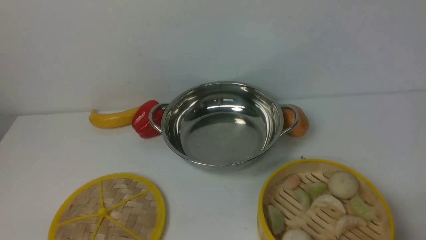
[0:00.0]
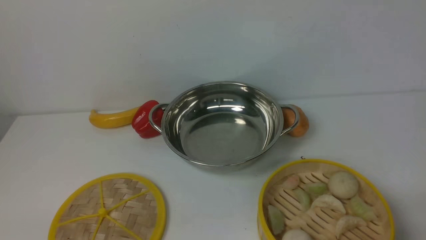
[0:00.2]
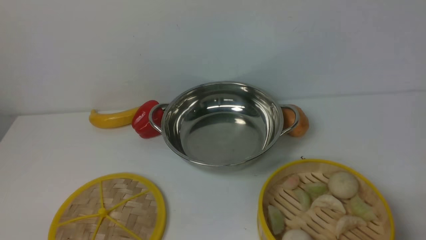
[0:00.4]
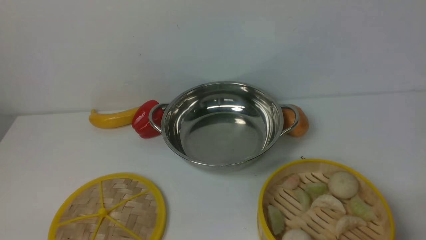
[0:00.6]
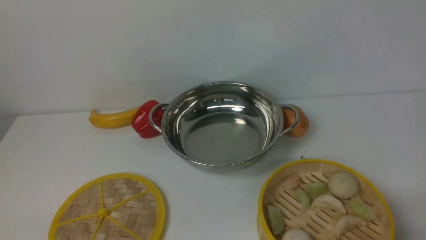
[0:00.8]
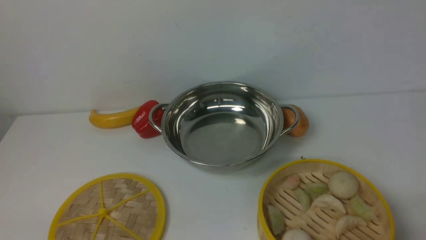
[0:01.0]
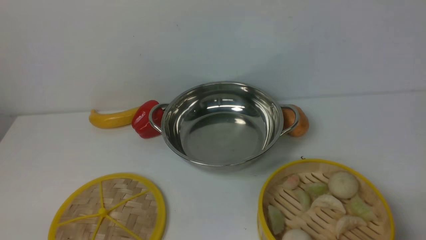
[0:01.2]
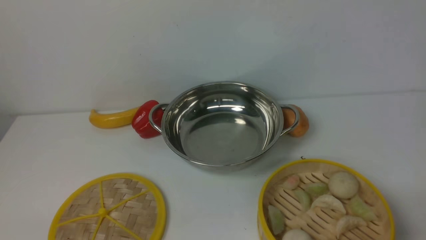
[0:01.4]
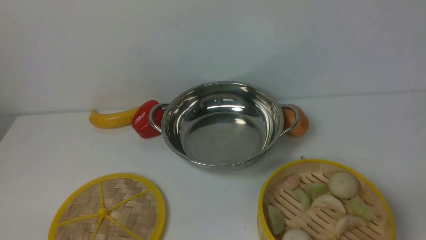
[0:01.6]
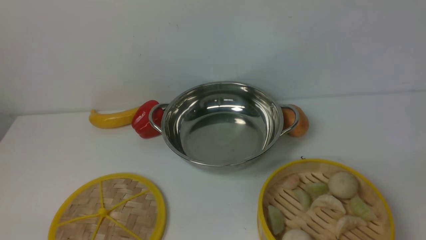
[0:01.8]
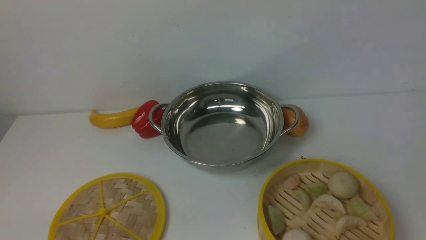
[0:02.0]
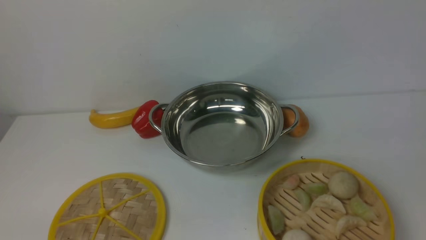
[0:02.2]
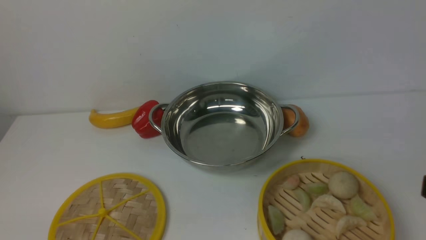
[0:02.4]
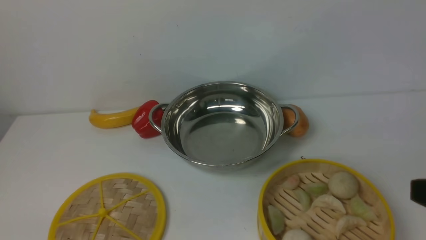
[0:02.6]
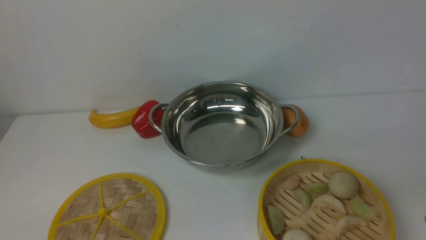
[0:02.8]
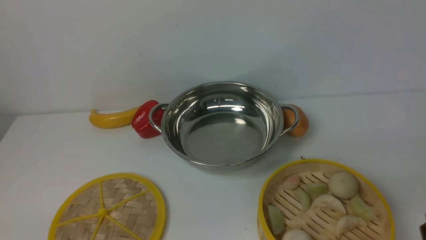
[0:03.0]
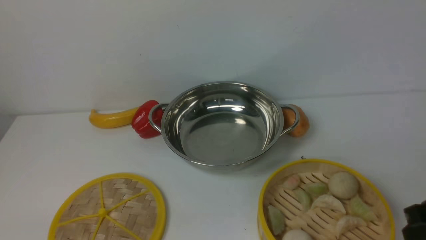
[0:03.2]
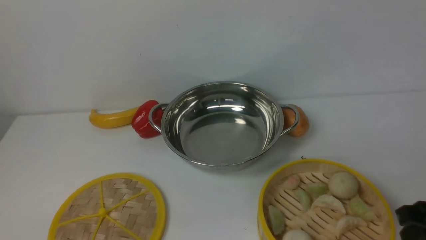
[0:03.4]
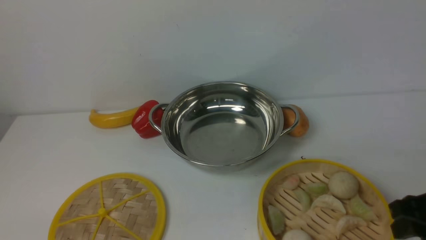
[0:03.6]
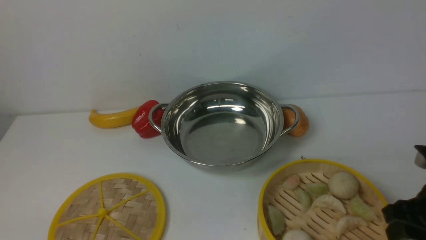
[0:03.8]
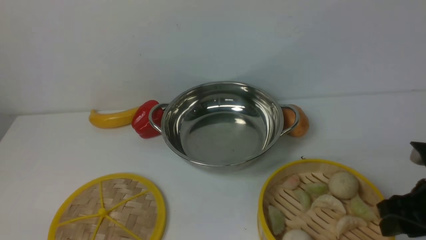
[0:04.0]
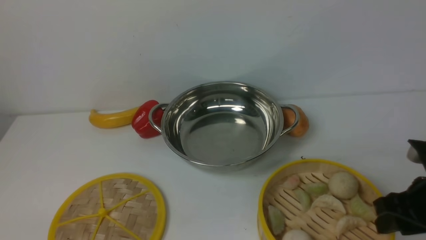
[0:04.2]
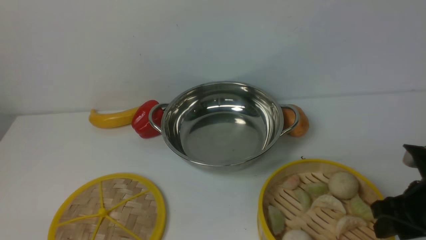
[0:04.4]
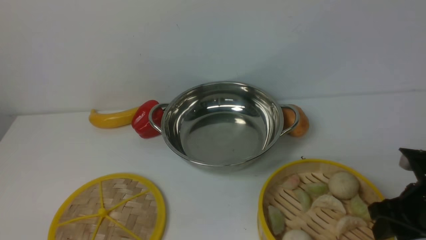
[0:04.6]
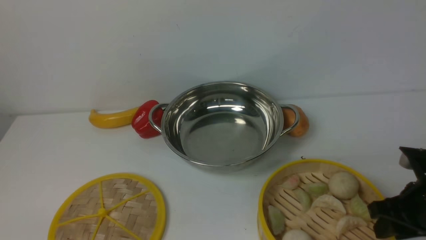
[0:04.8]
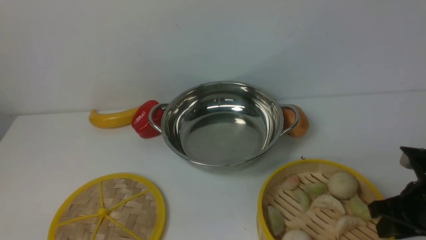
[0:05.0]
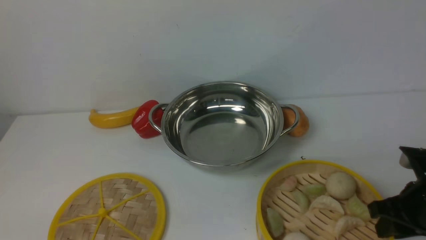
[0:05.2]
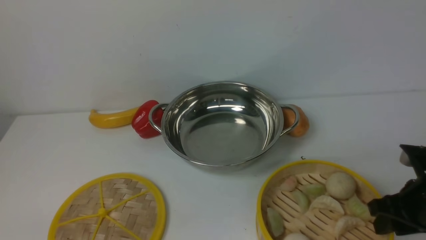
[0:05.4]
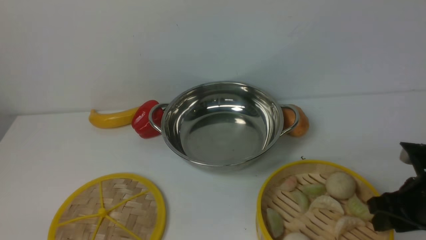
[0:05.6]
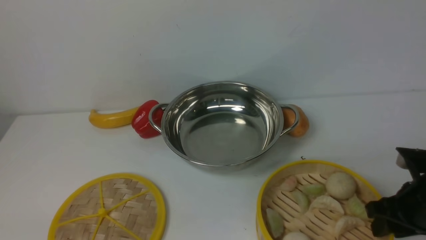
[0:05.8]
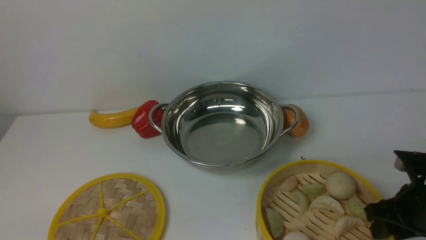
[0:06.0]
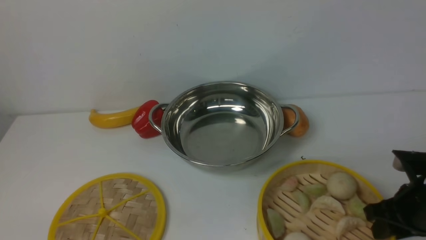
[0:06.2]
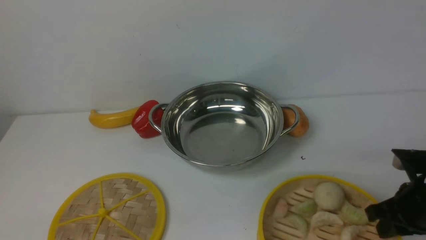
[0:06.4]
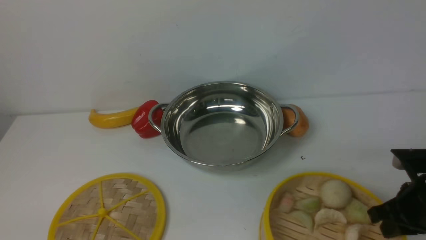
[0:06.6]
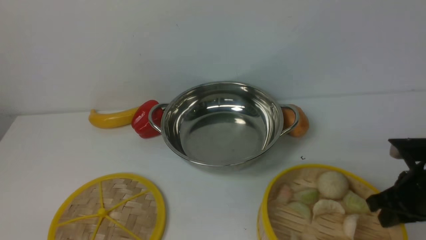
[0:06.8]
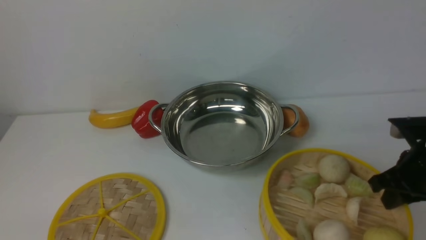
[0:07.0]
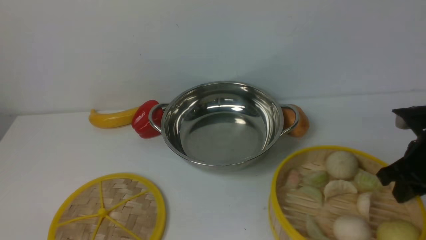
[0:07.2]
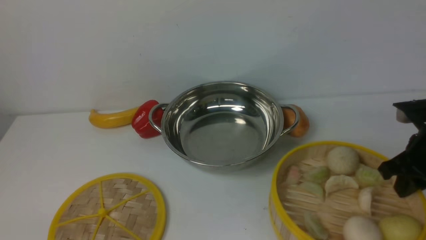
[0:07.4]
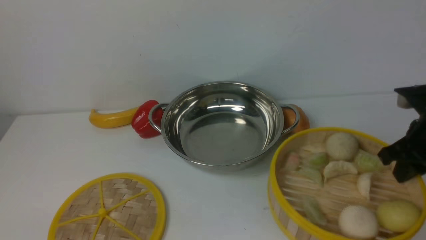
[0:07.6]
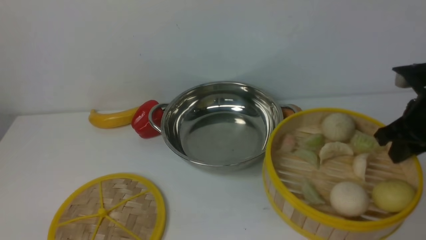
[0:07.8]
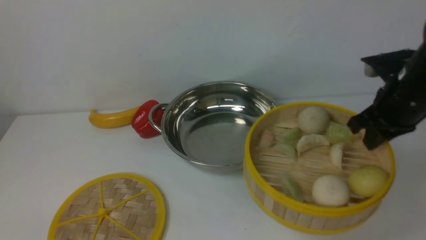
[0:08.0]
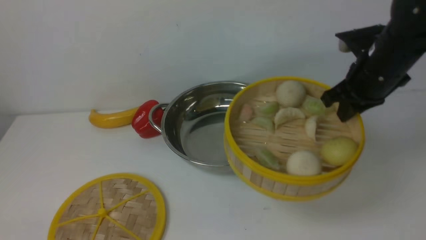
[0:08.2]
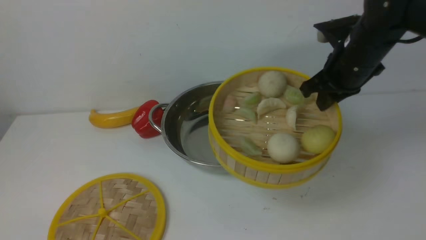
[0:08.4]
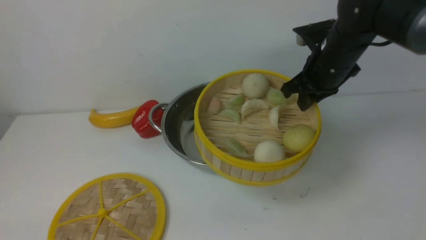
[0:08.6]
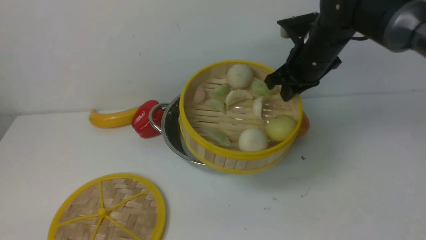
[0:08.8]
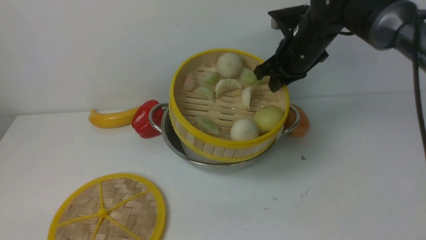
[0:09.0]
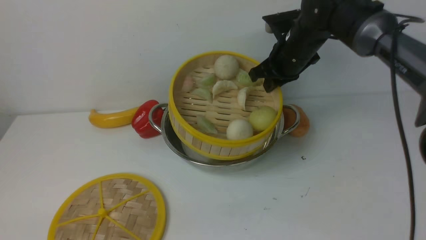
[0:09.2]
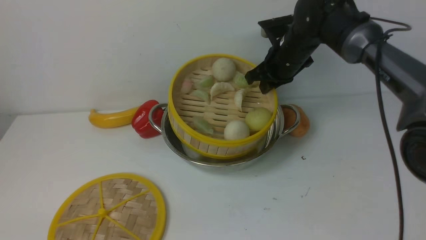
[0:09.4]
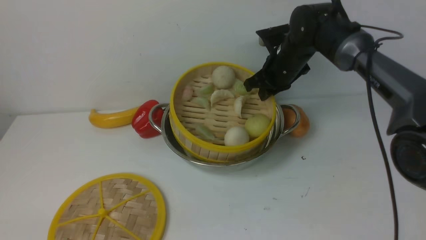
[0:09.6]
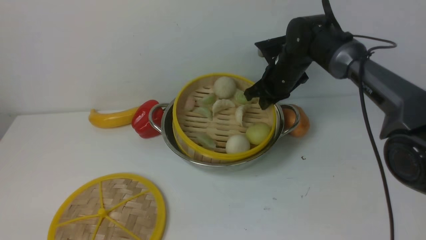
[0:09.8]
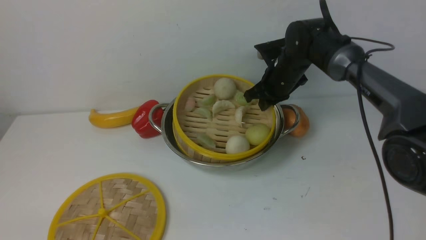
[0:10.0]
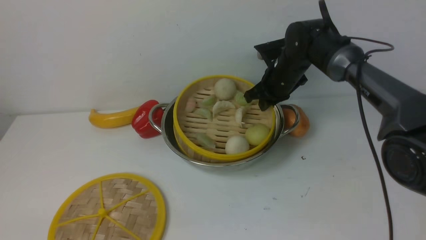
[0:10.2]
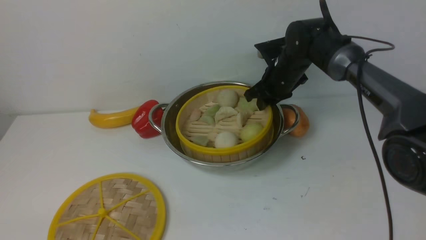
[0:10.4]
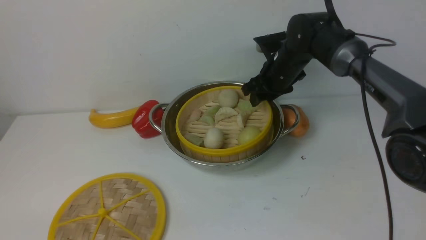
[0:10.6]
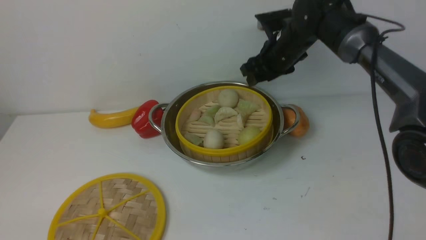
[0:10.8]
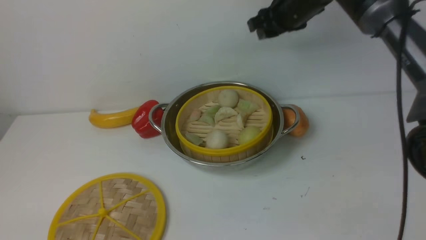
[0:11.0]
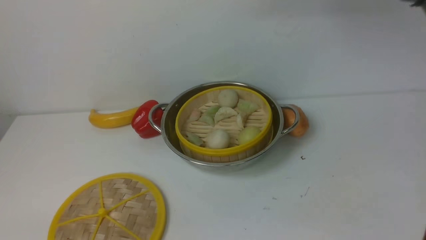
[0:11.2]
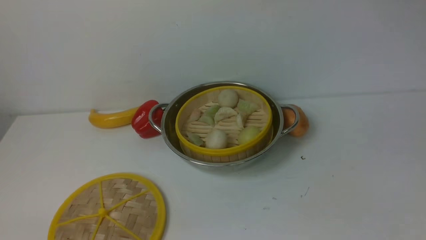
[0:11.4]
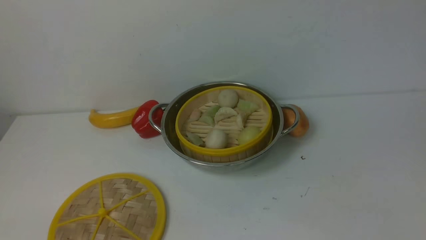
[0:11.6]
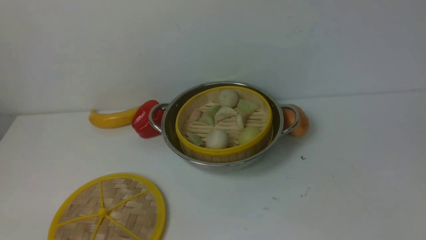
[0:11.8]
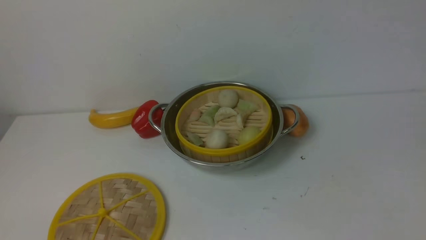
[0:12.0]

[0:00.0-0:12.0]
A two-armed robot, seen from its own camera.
Task of the whole recording: place the steamer in the pot on the white table, and put the lid on the steamer.
Step, 0:00.0 to 0:07.2: use the right arm to lift the steamer closest to it.
Step, 0:07.4 to 0:11.2: use the right arm to put the steamer into the iron steamer pot in the middle.
0:03.0 to 0:04.4: The right gripper is displaced downward and forward by some 10 cm.
0:04.4 to 0:06.0: The grippers move only a little.
0:06.0 to 0:07.6: The right gripper heads upward and forward, covering approximately 10 cm, and closes.
0:07.6 to 0:09.0: The right gripper is displaced forward and to the left by approximately 20 cm.
0:09.0 to 0:10.4: The right gripper goes approximately 5 cm downward, and opens up.
0:10.4 to 0:12.0: The right gripper is displaced upward and backward by approximately 35 cm, and closes.

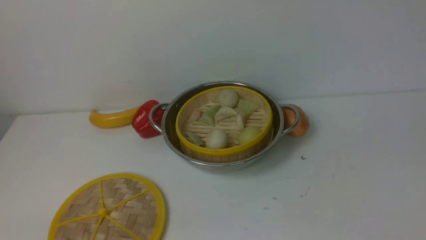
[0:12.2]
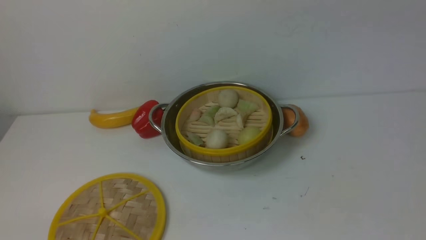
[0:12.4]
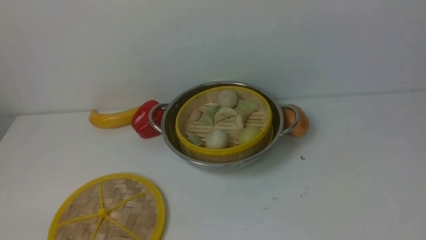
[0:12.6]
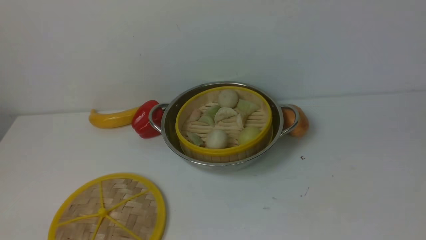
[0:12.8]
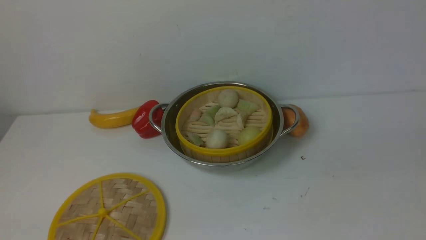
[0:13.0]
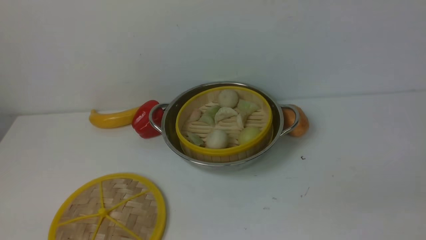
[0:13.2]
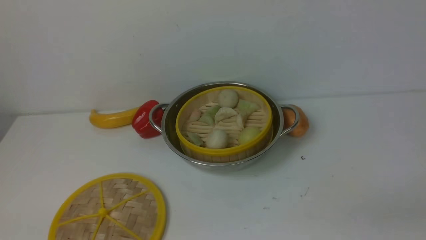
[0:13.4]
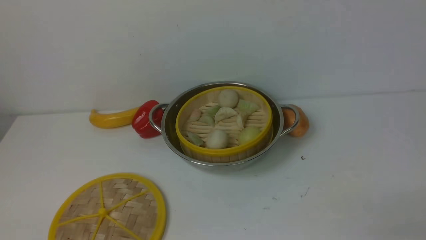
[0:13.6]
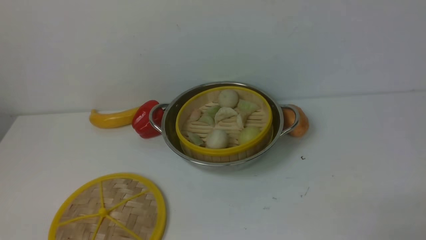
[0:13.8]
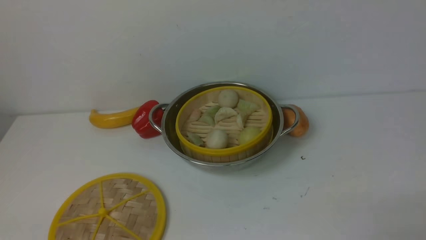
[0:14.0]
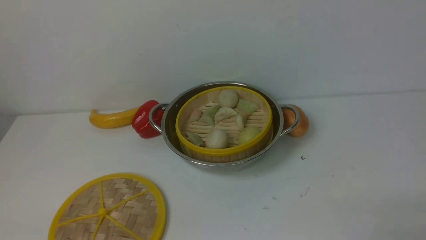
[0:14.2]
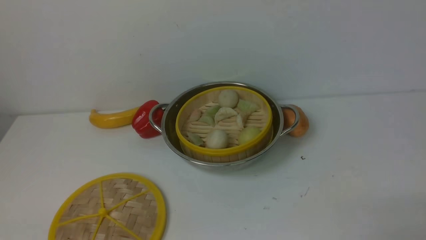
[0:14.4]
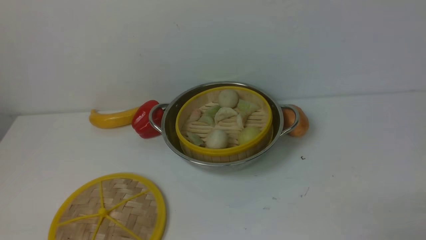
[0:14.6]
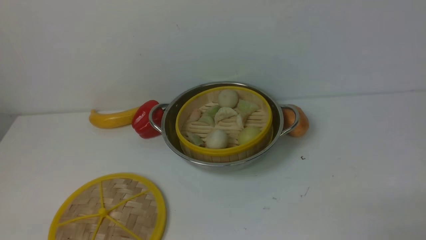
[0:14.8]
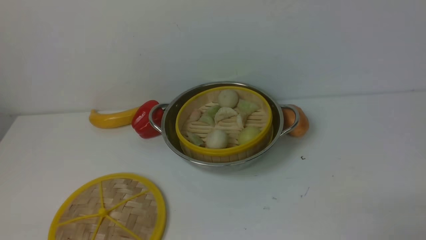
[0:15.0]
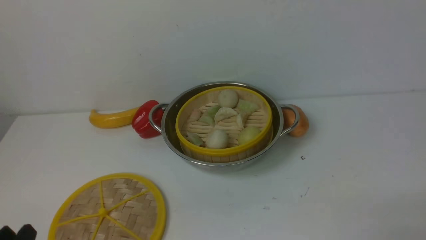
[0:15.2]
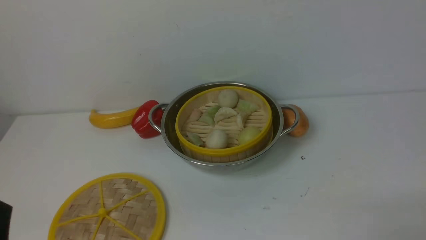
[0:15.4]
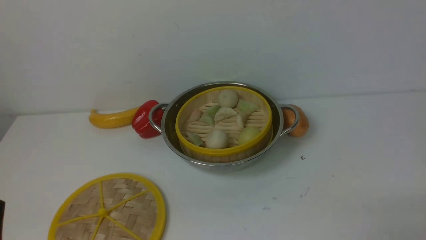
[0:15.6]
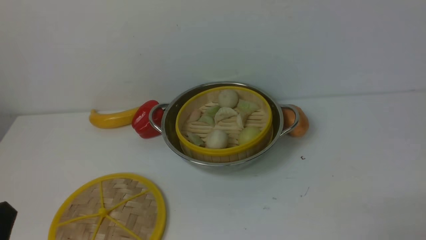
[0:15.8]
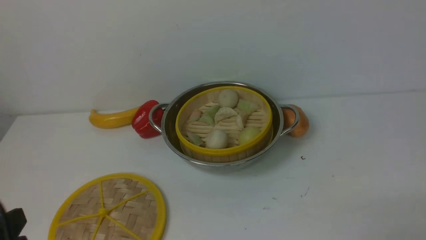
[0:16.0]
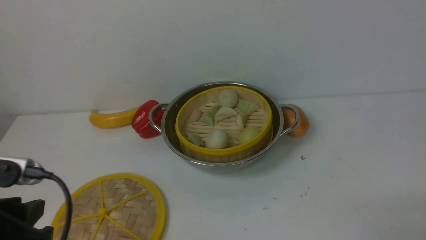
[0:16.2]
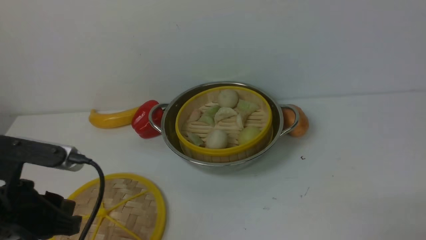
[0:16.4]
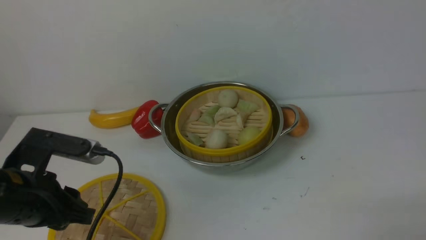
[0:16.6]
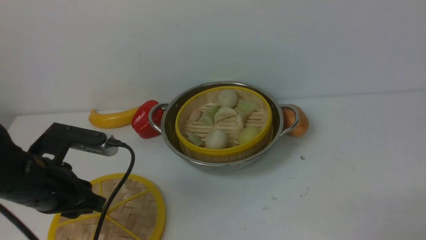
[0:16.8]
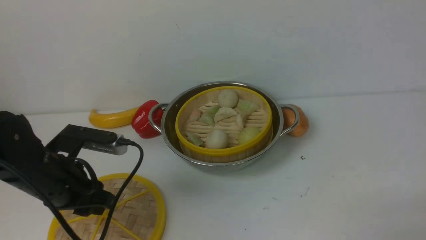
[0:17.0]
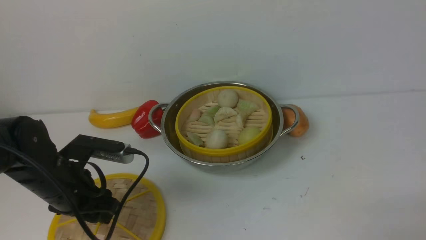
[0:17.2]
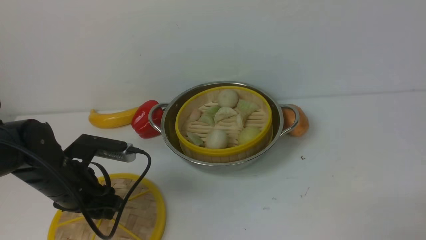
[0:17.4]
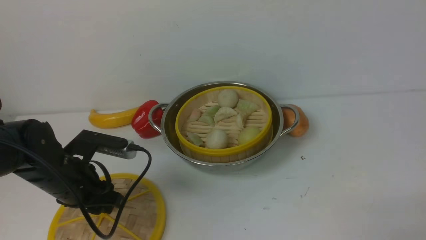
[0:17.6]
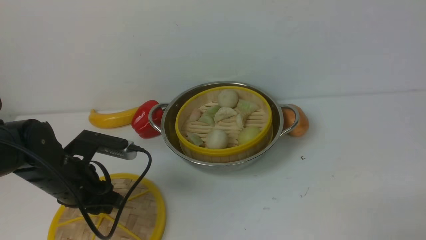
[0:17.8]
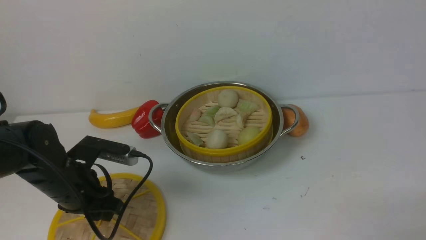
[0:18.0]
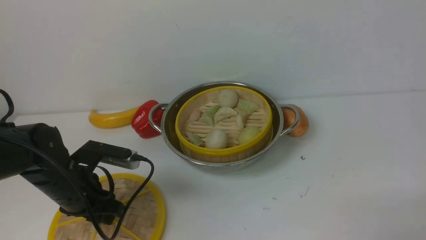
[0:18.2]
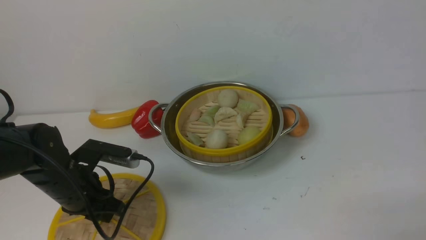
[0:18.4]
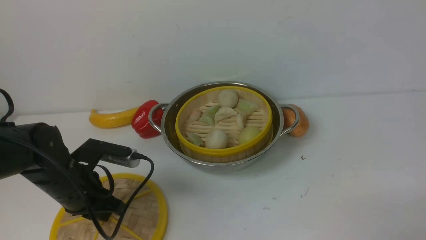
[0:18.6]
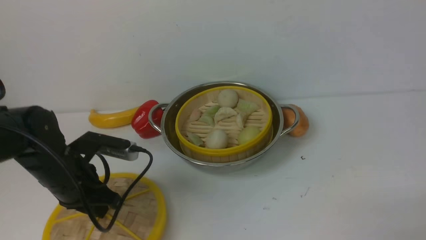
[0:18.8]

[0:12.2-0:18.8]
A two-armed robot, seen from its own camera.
Task of the whole recording: place the steamer in the pot on the white table, and put the lid on the steamer.
0:15.4 to 0:17.2: The left gripper moves forward, roughly 20 cm, and opens.
0:17.2 to 0:18.8: The left gripper closes up.
